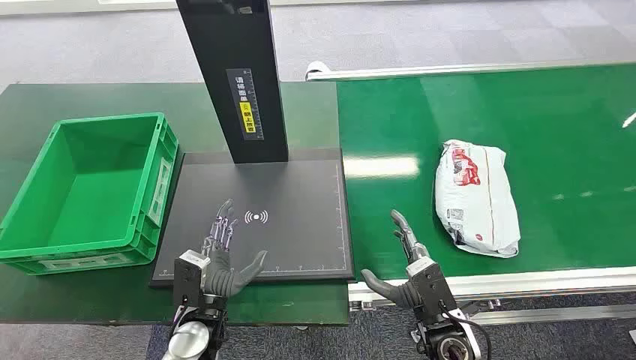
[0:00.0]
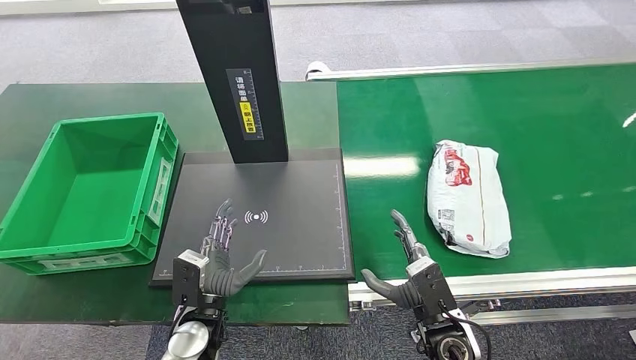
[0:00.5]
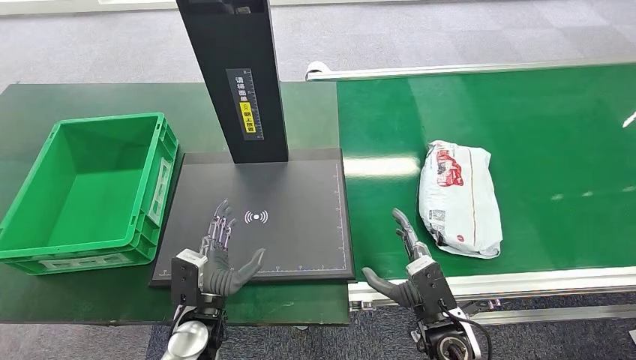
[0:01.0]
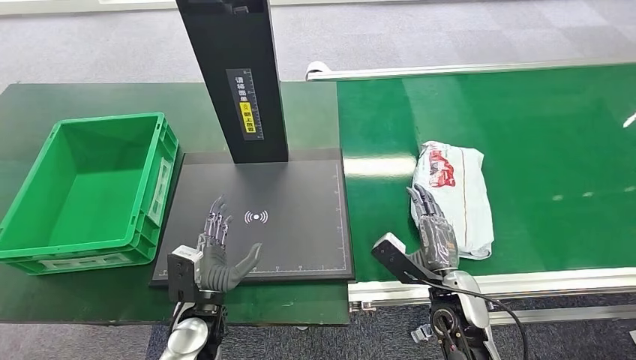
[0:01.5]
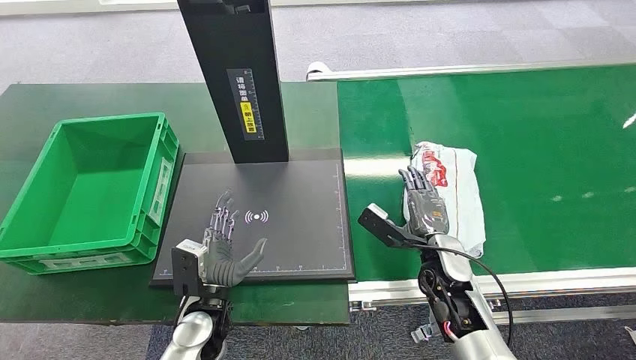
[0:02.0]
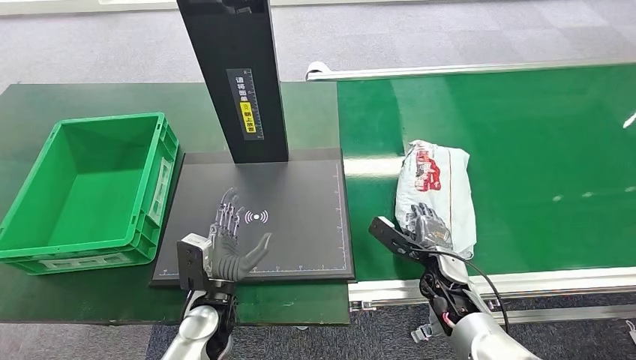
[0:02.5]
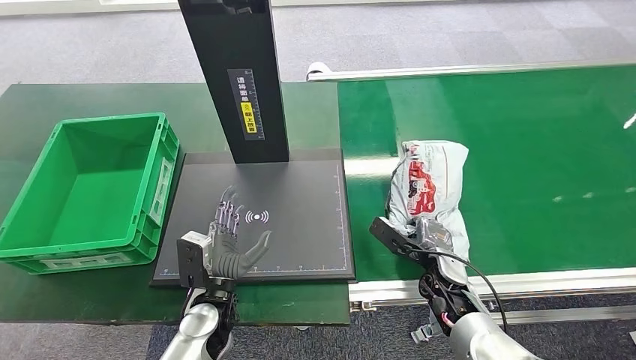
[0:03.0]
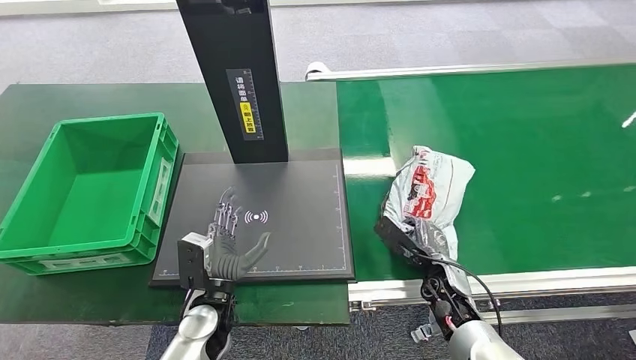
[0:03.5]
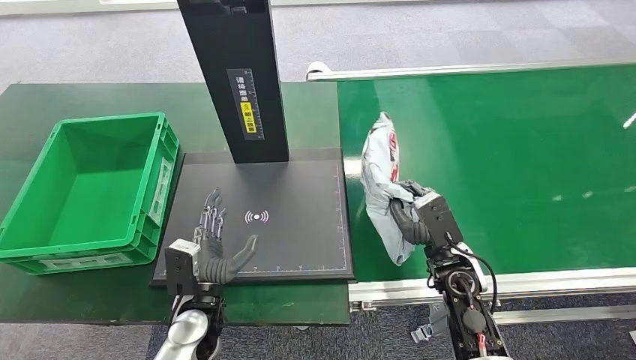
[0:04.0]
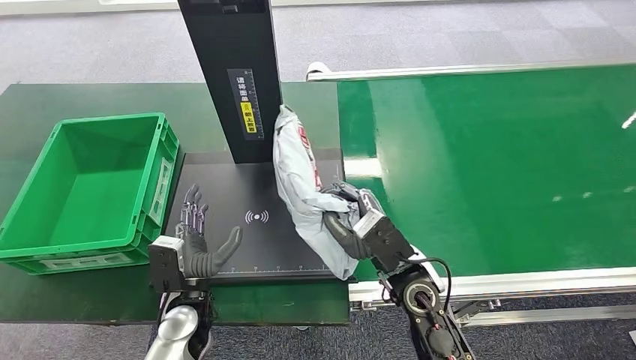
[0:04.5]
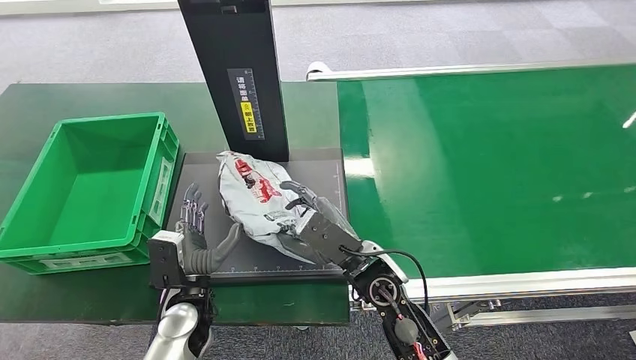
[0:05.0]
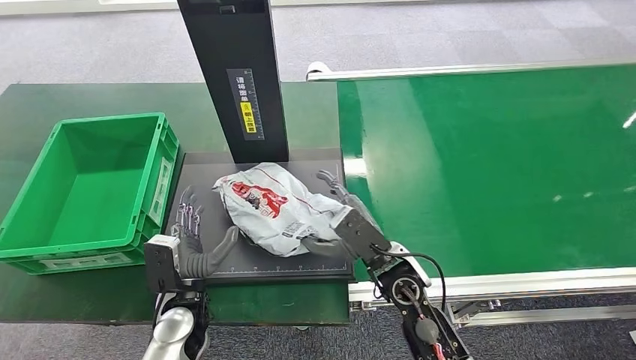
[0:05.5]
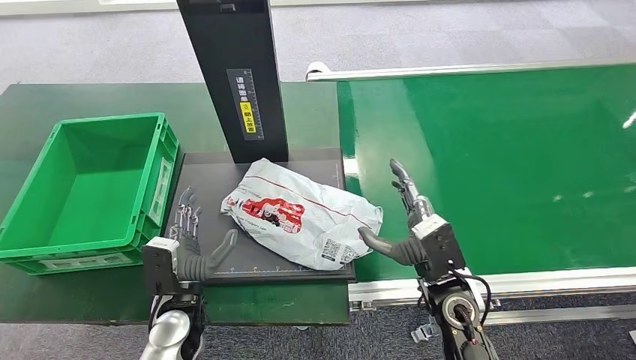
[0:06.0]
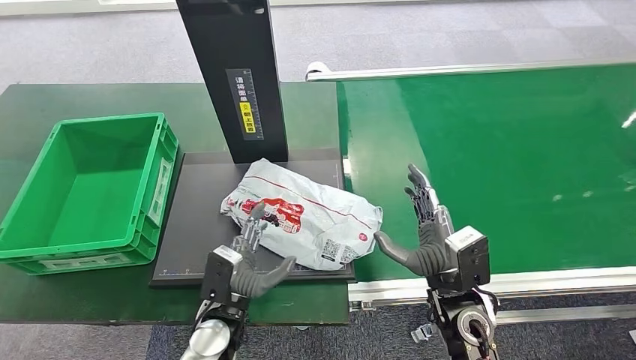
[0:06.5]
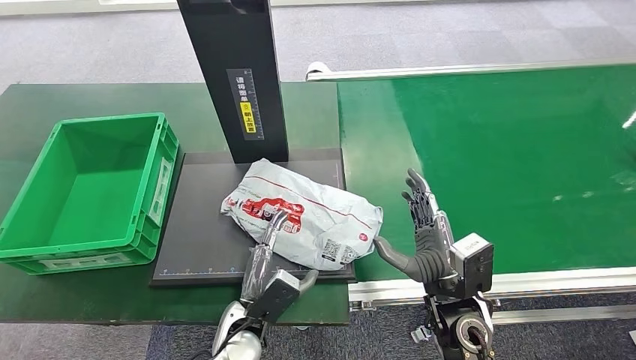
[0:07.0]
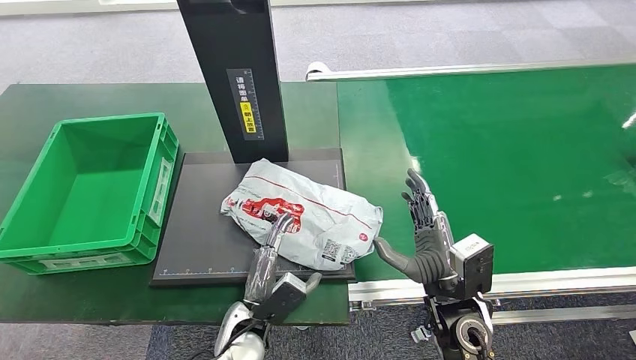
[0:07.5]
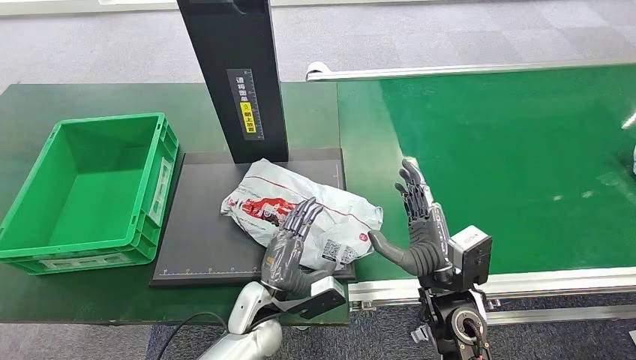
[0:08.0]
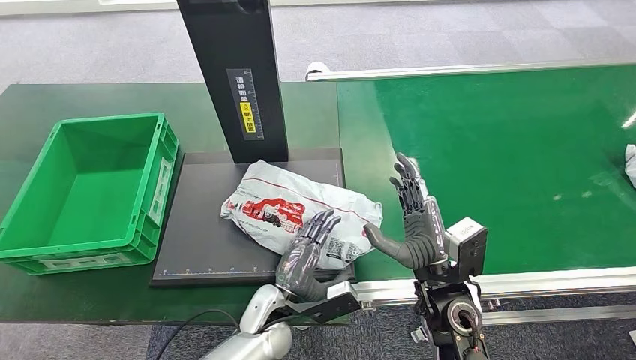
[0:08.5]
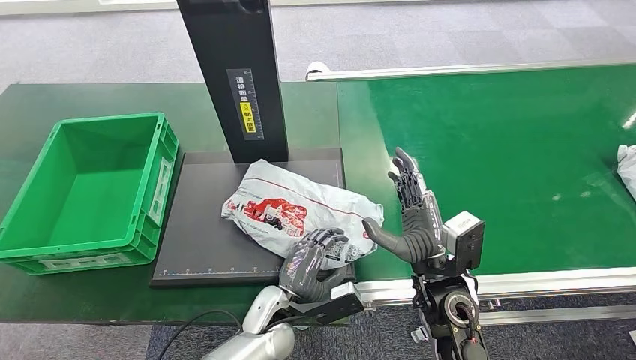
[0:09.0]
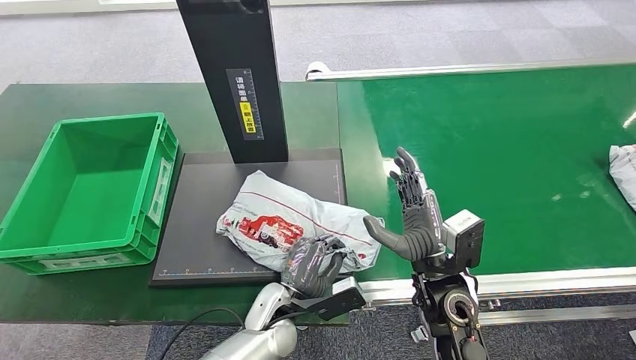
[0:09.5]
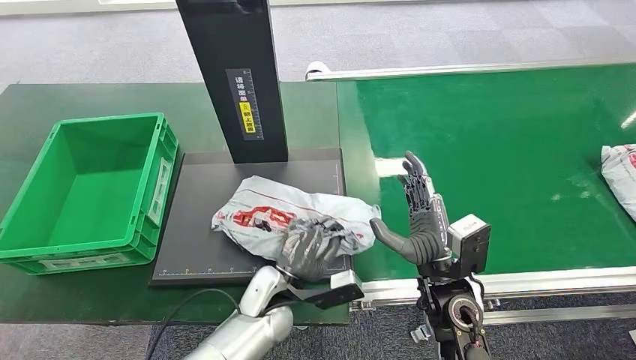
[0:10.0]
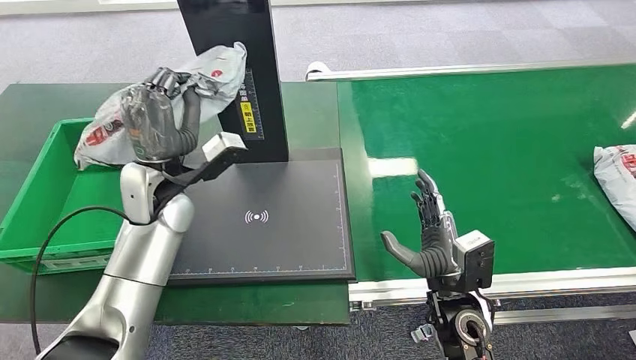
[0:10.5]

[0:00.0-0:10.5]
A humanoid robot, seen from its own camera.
Step, 0:00.0 to 0:04.0: Pick up the package from the conveyor belt.
Step, 0:04.5 to 0:07.0: Place the package onto the inbound machine.
Step, 0:07.5 to 0:10.0: Pick up the package from the inbound machine.
0:02.0 to 0:04.0: The right hand travels downward and back again, some 5 cm each way.
0:04.0 to 0:06.5: The right hand heads backward, covering roughly 5 cm, and moves about 15 cm to the left and comes back.
0:06.5 to 0:08.5: The left hand moves to the right, roughly 5 cm.

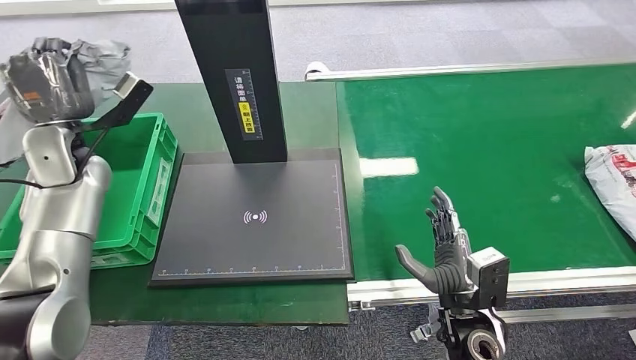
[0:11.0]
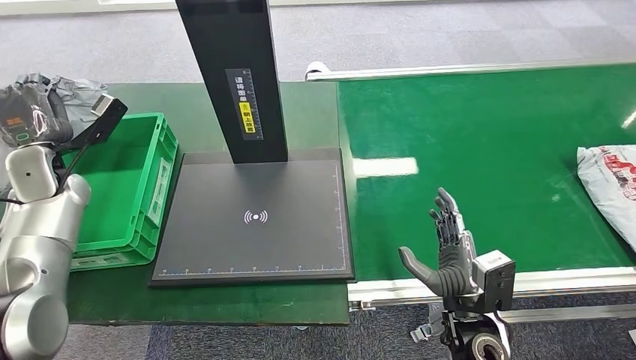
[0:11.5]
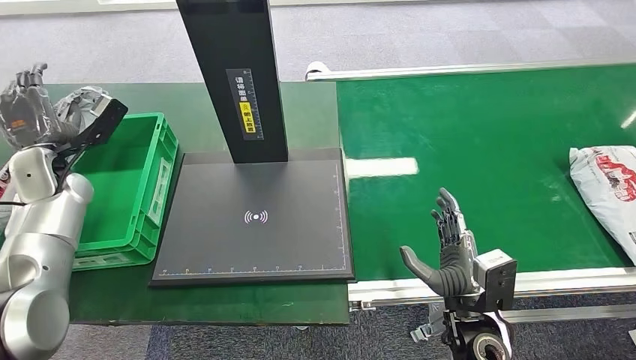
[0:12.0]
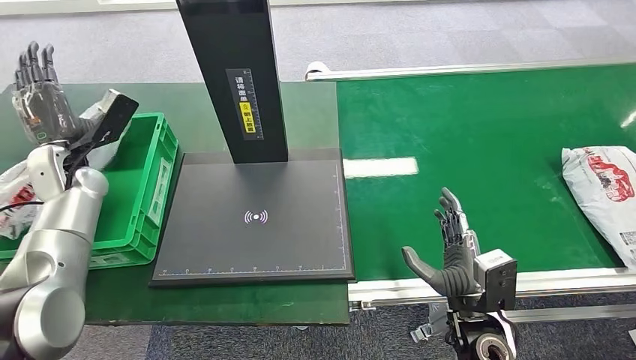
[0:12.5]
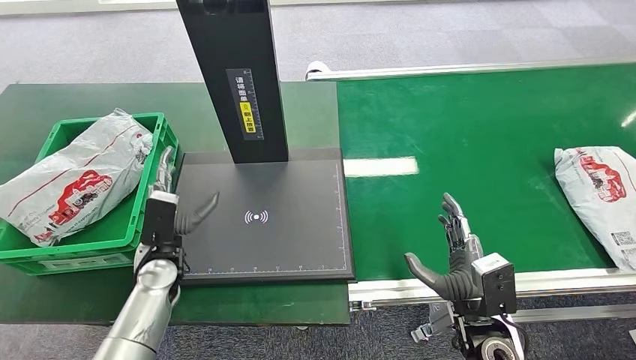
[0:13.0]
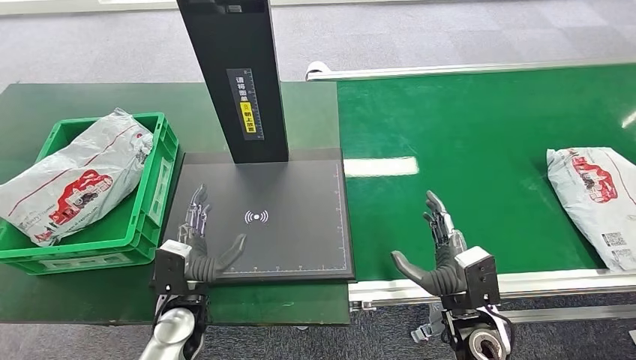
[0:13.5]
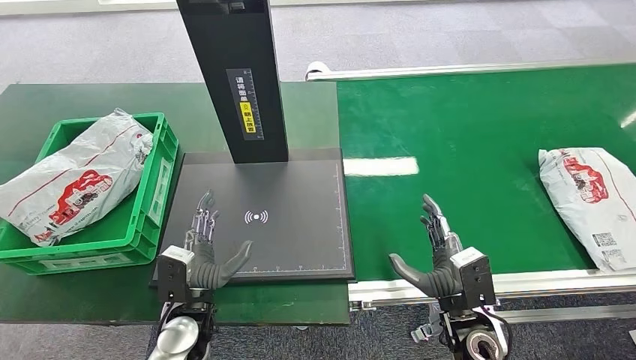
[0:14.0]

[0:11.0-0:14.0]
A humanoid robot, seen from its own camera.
Step, 0:11.0 to 0:14.0: Place the package into the parcel locker.
0:11.0 to 0:12.5: The left hand moves some 5 cm.
